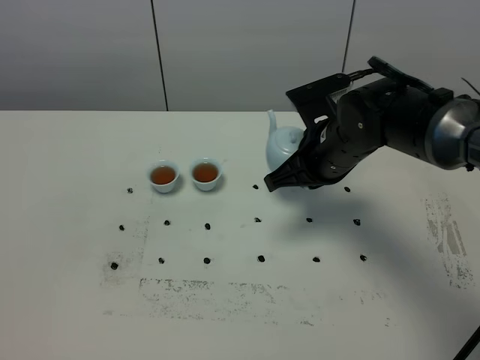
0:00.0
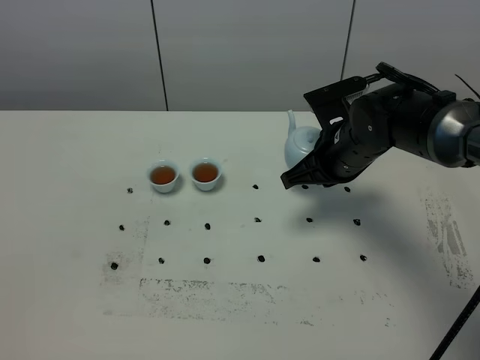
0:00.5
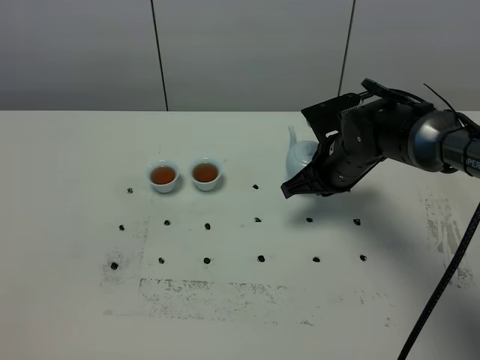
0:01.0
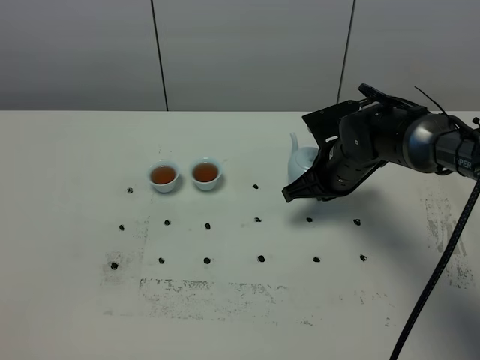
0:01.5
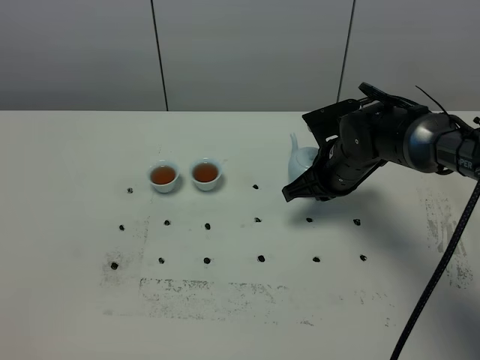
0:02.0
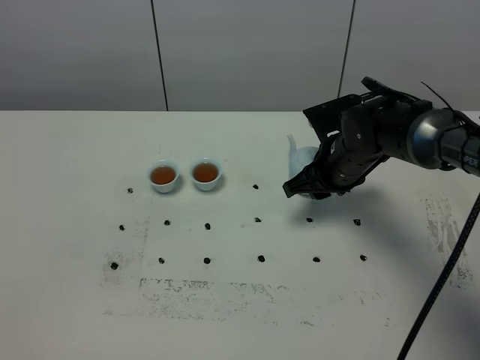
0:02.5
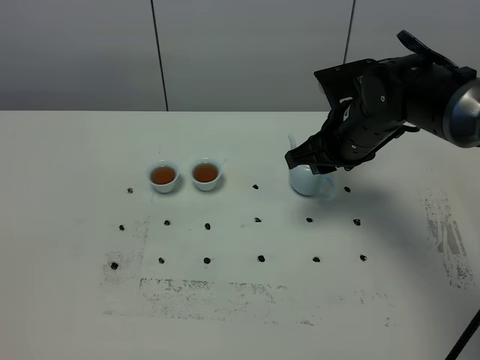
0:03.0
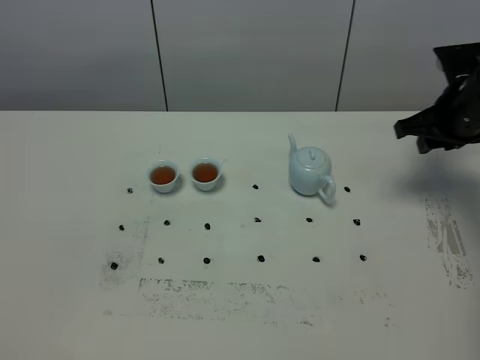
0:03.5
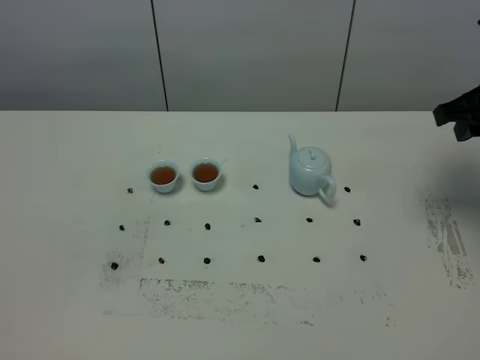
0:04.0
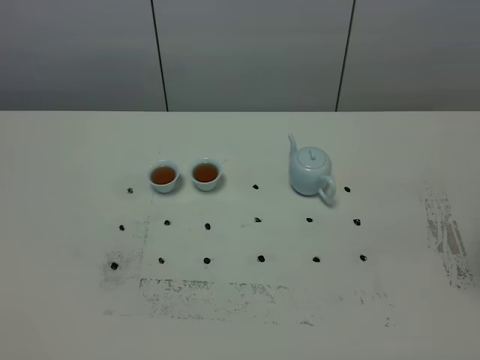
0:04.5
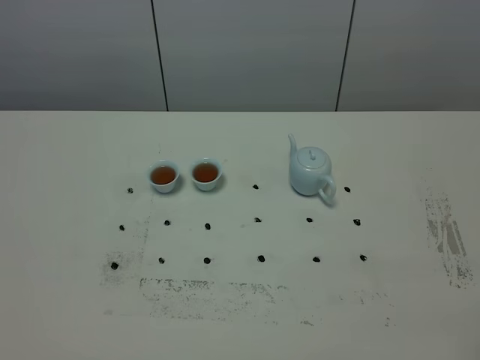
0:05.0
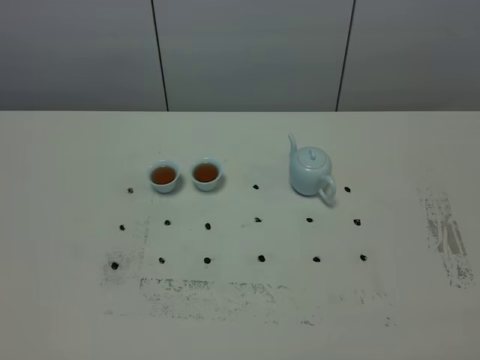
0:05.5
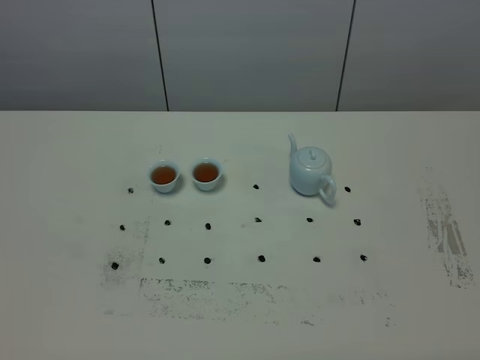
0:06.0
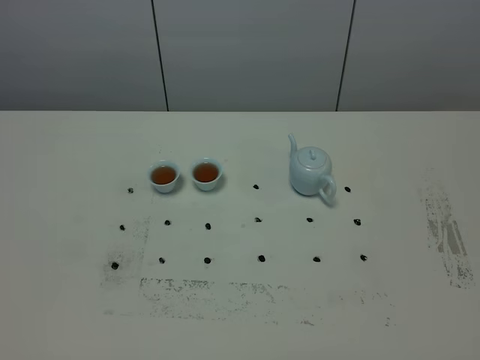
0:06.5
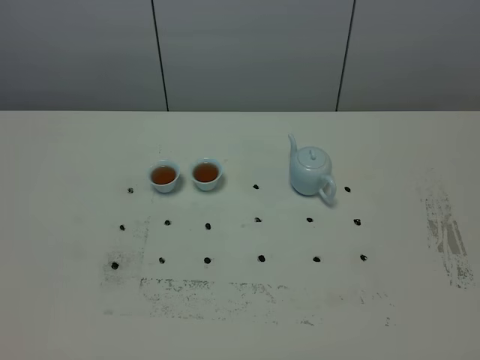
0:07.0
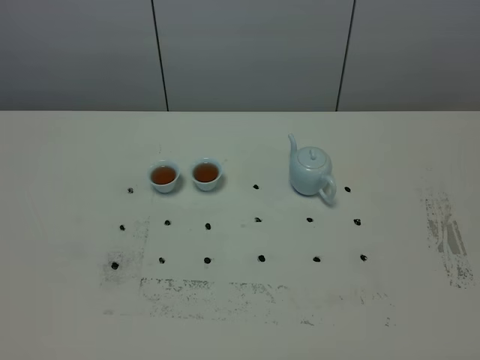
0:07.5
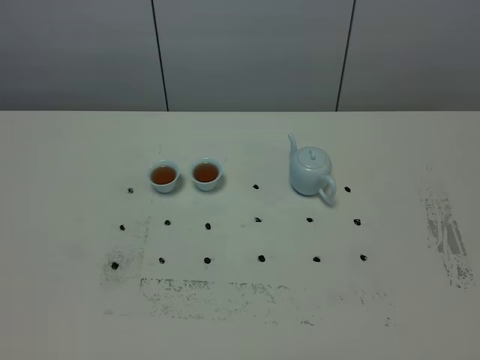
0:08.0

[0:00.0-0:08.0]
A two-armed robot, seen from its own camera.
Task of the whole recording: grasp the blue porcelain teapot and pour the tea into the two blue porcelain teacups one by one, put the blue porcelain teapot back in its original place.
0:00.0 to 0:02.0: The right gripper goes about 5 cm downward.
0:02.0 to 0:04.0: The right gripper travels to the right and upward by about 25 cm, and opens.
0:04.0 to 0:06.0: The right gripper travels backward by approximately 35 cm.

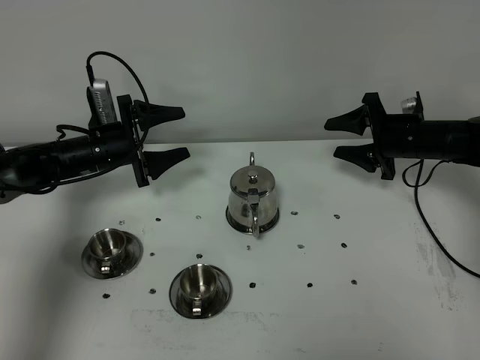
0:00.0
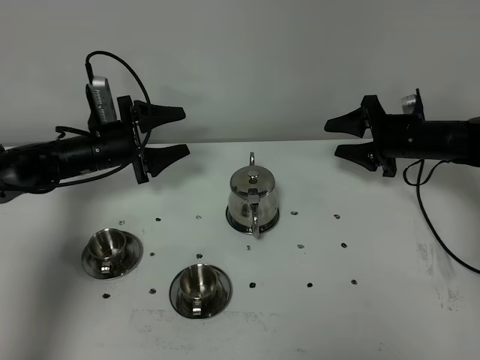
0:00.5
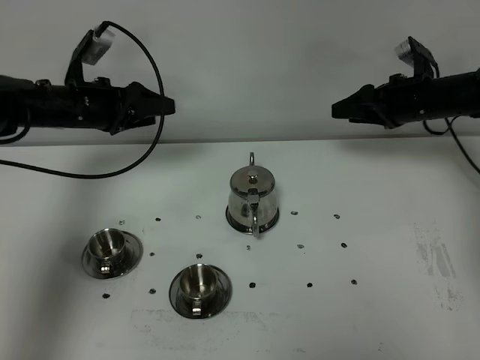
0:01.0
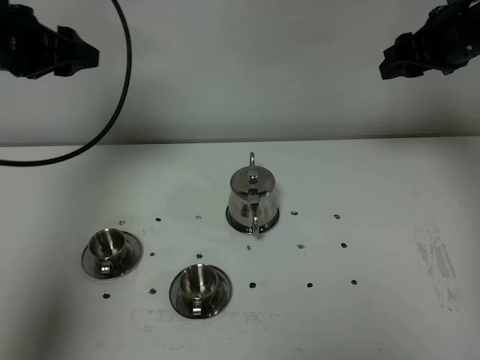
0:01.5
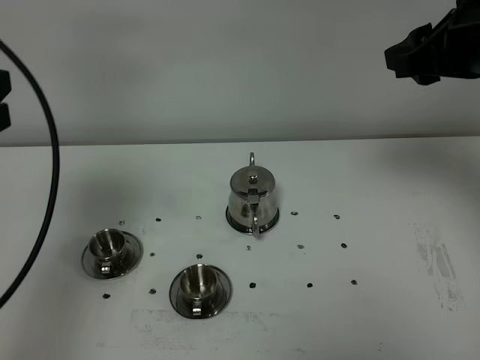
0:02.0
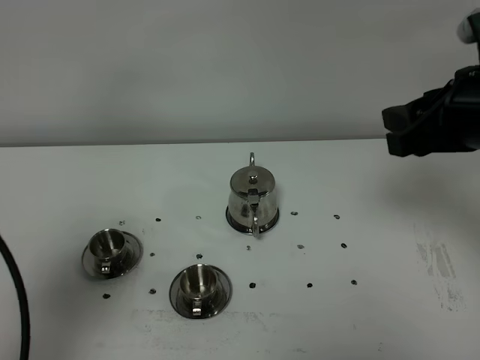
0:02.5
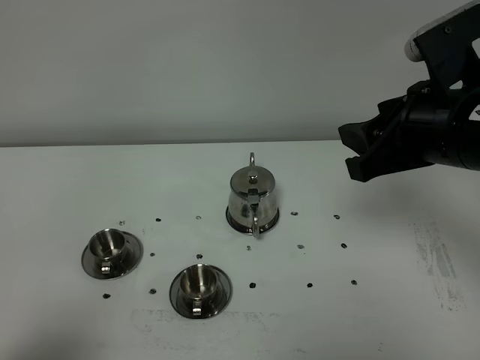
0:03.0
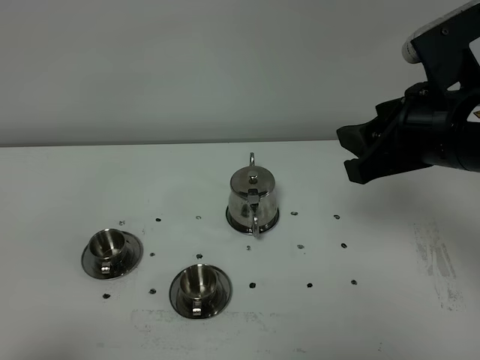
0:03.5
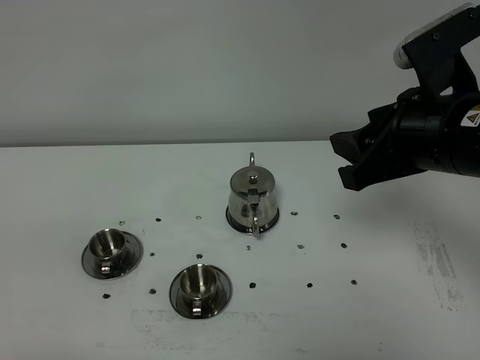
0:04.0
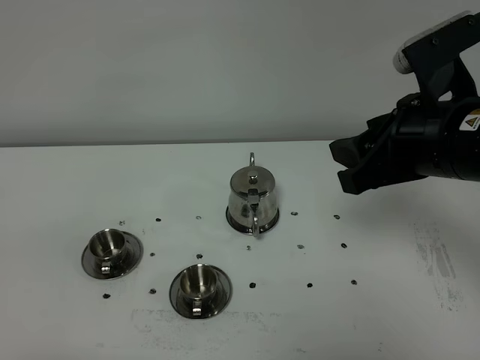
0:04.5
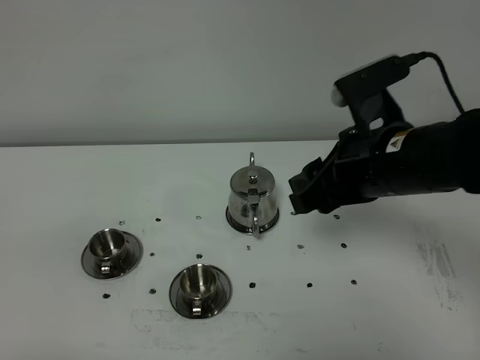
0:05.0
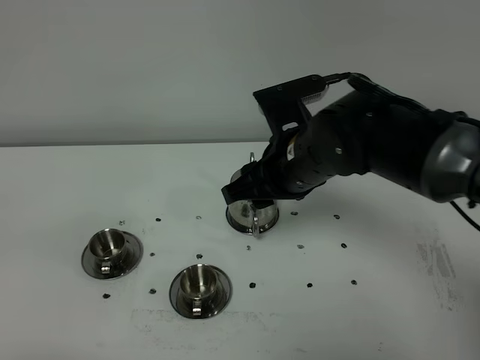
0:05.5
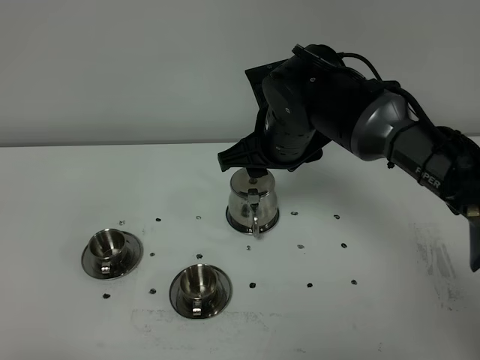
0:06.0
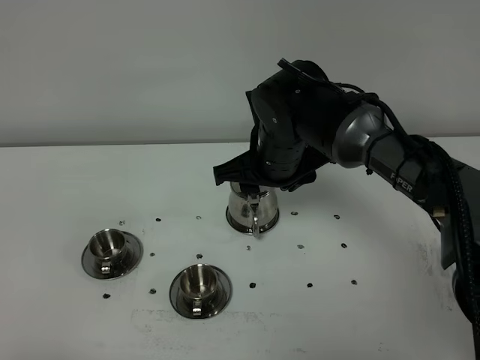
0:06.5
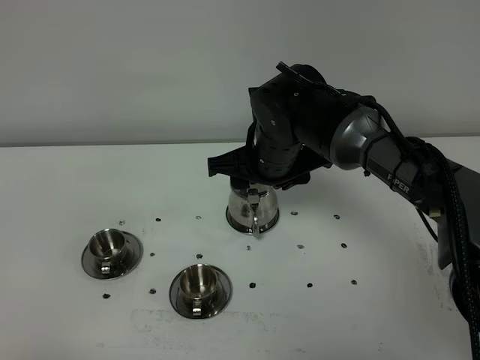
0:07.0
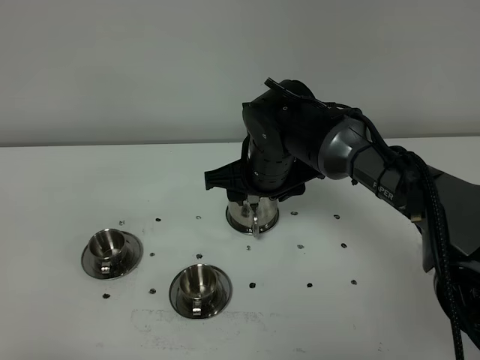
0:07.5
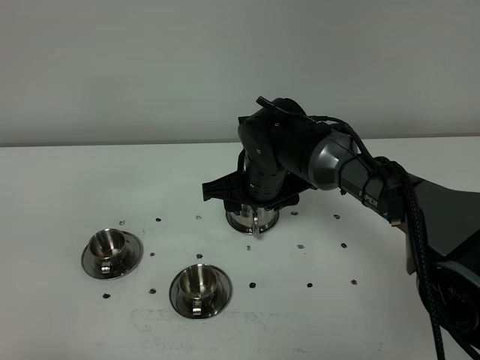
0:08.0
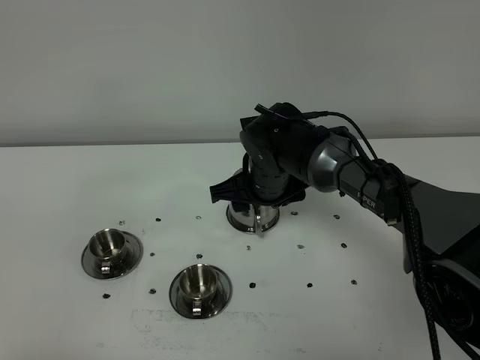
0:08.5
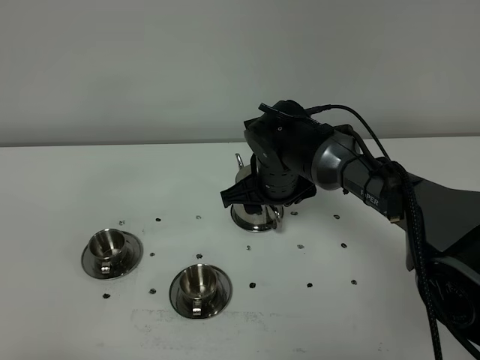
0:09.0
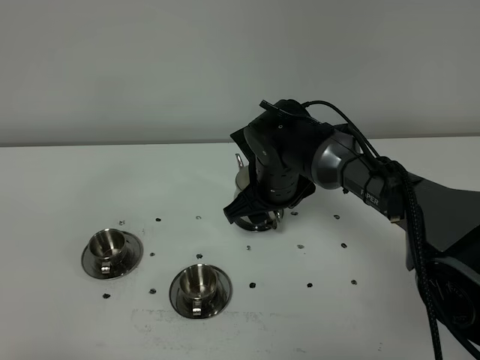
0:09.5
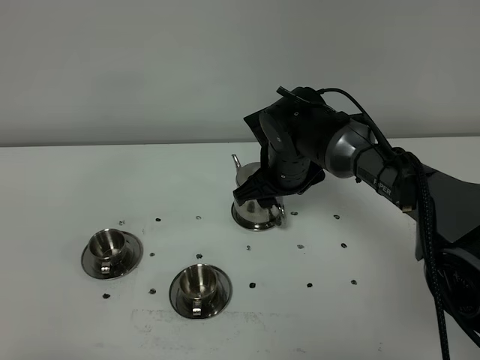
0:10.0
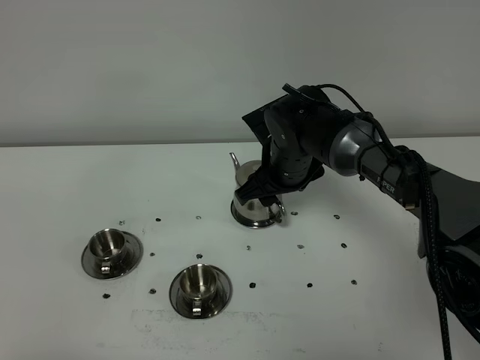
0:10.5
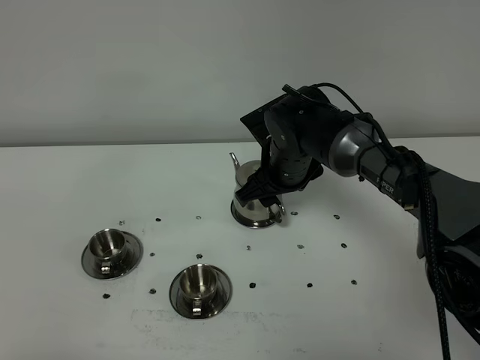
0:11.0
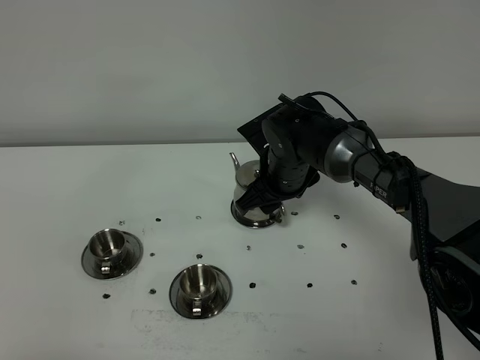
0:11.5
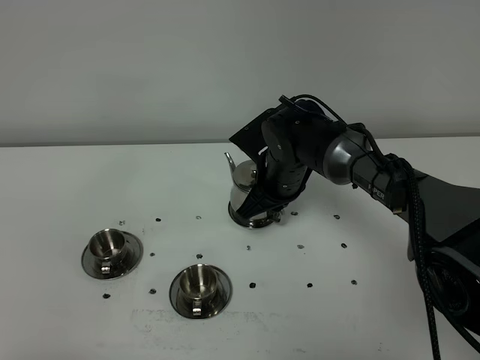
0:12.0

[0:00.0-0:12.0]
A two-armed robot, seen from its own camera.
Task of the whole recording: grasp the stainless steel teapot and pour the tea into the two stainless steel teacups one by one, put the stainless steel teapot back in its original place.
0:00.0 to 0:02.0: Both grippers move upward and backward, roughly 35 cm. The left gripper closes up.
0:02.0 to 0:04.0: The right gripper goes about 10 cm backward and to the left, while the left gripper is displaced backward by some 25 cm.
0:04.0 to 0:06.0: The right gripper moves to the left, forward and downward, roughly 20 cm.
0:06.0 to 0:08.0: The right gripper shifts approximately 10 cm downward.
0:10.0 to 0:12.0: The right gripper closes up.

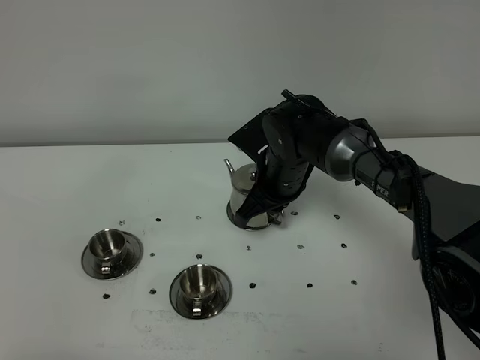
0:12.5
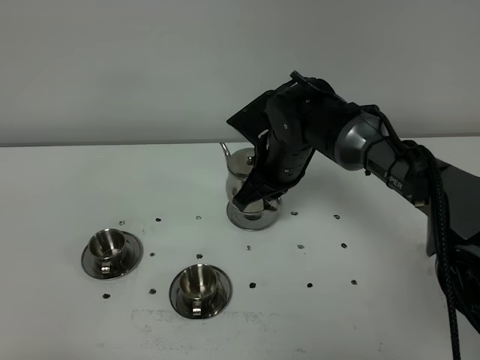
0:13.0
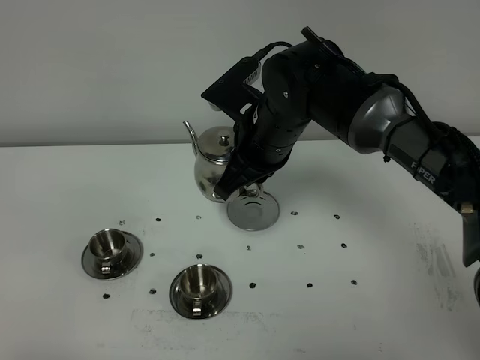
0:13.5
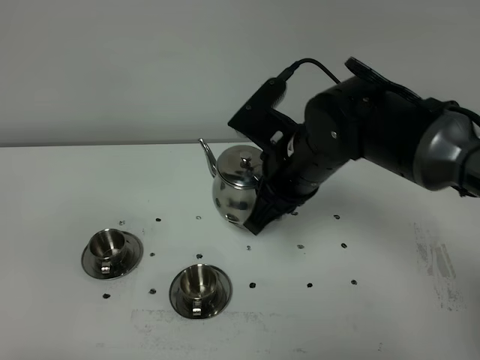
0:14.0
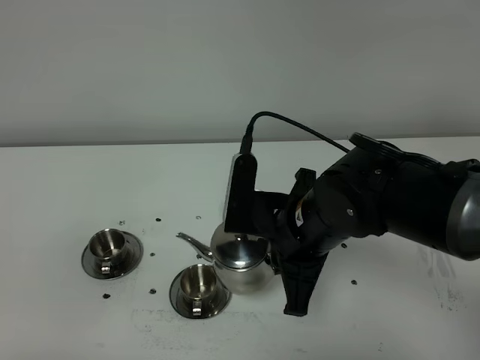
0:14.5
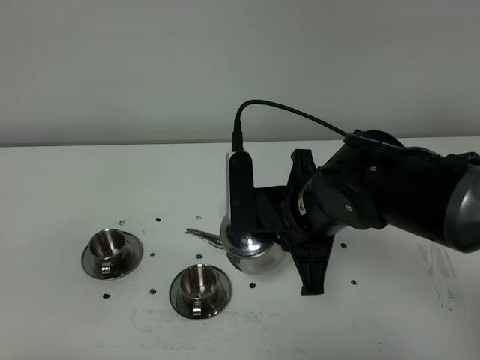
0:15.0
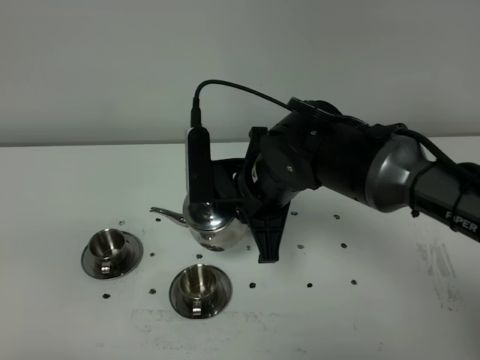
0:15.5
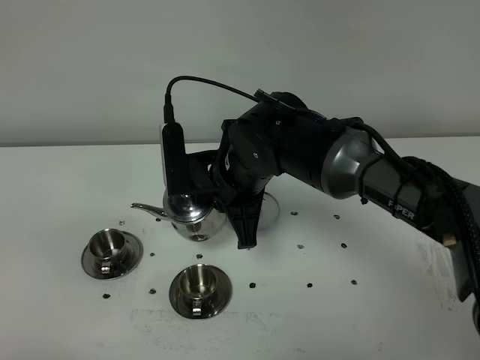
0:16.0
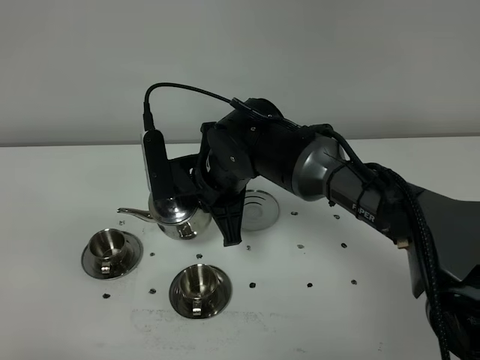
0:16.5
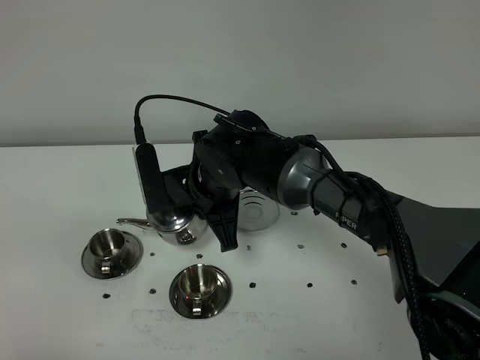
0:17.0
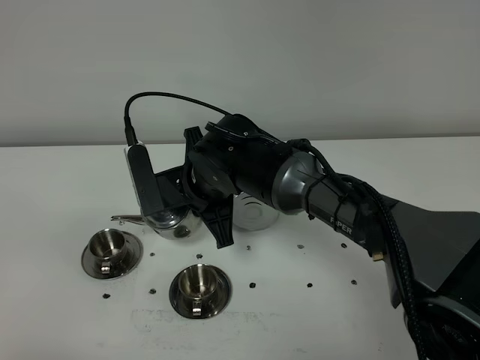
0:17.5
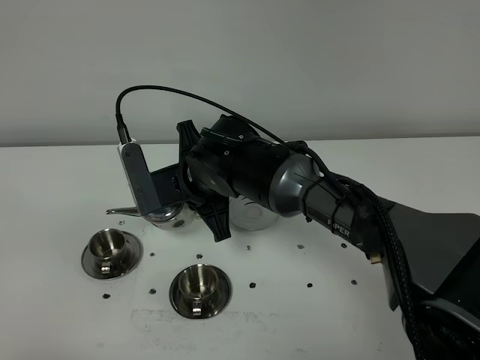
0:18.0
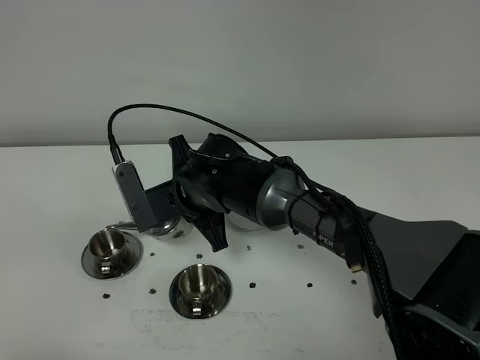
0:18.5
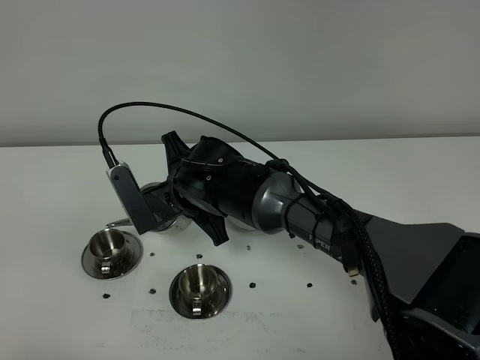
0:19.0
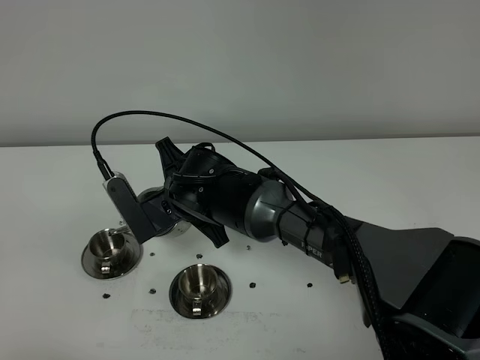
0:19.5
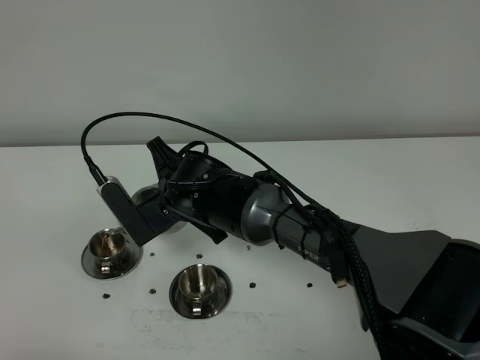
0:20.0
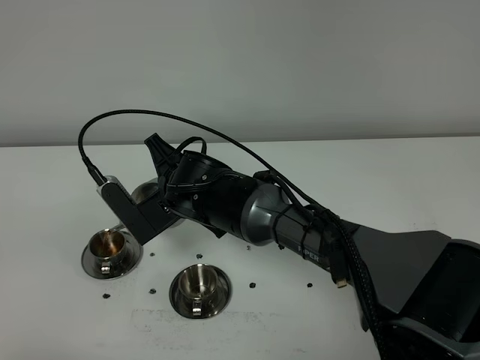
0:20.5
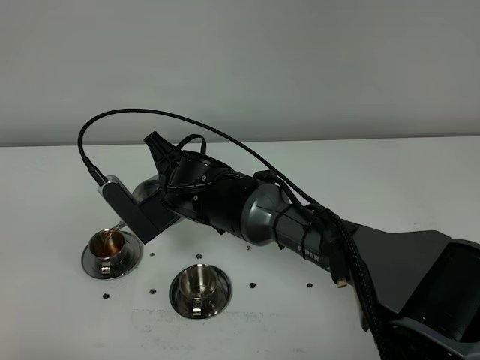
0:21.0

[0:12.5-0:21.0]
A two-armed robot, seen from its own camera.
Task of the whole recording: grasp the stainless steel teapot and pour the tea into the two stainless steel teacups one by one, put the stainless steel teapot back in its original place.
0:12.5 to 0:14.5: The right gripper moves backward and upward, some 15 cm.
0:14.5 to 0:16.5: The right gripper shifts approximately 15 cm forward and to the left.
0:19.0 to 0:21.0: The grippers move only a little.
